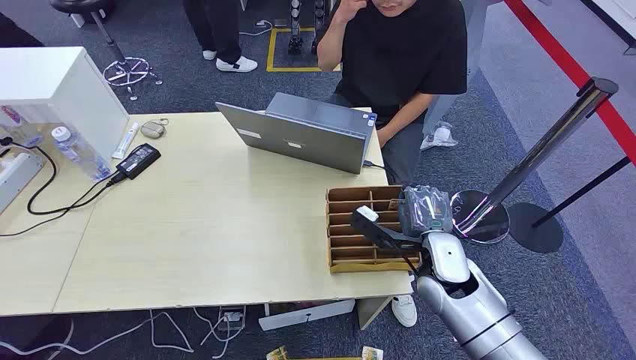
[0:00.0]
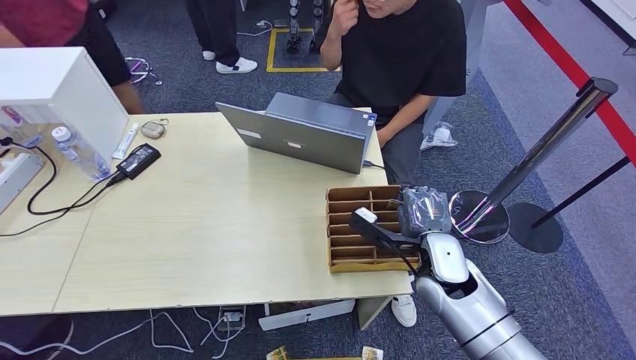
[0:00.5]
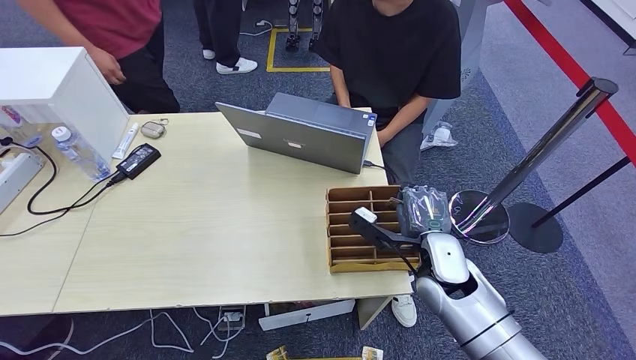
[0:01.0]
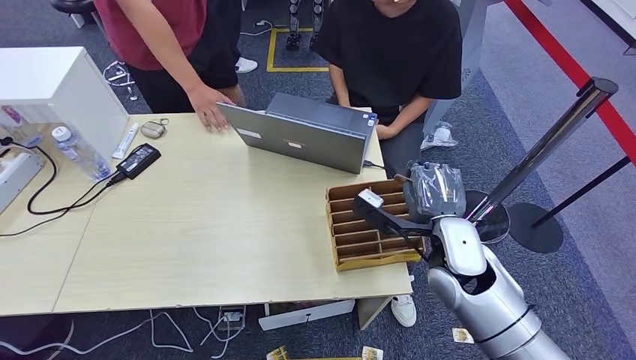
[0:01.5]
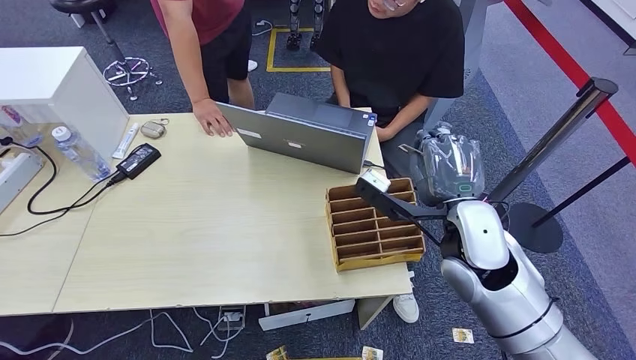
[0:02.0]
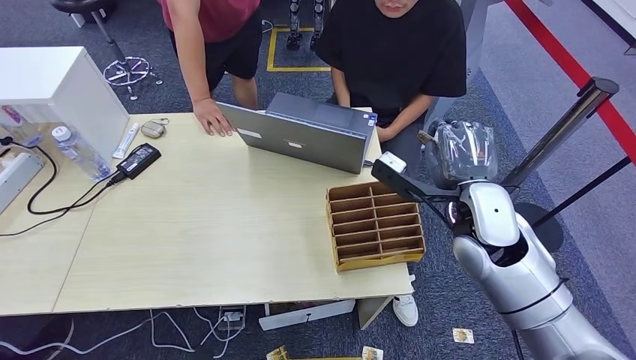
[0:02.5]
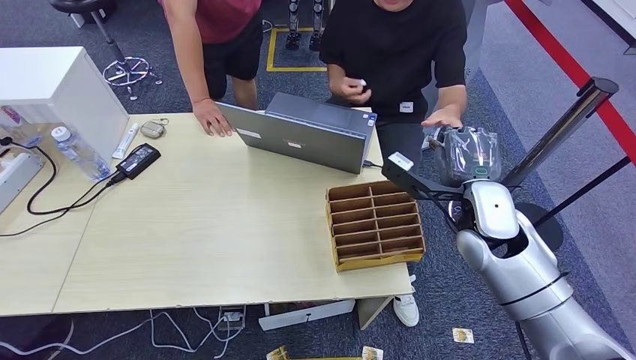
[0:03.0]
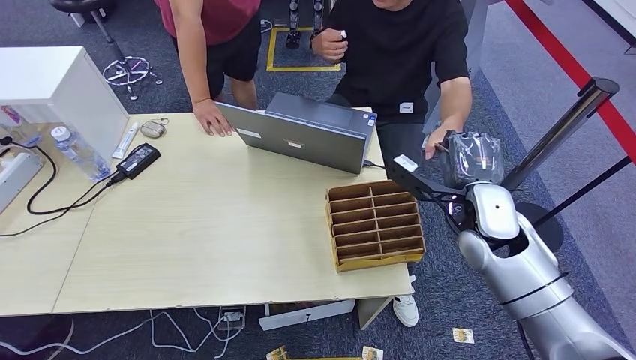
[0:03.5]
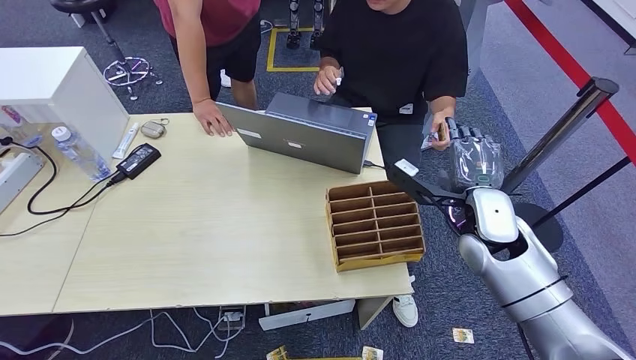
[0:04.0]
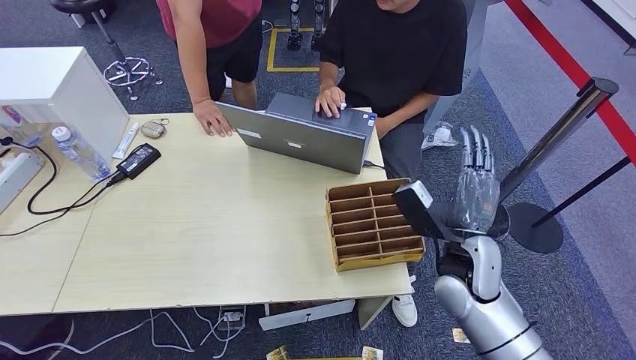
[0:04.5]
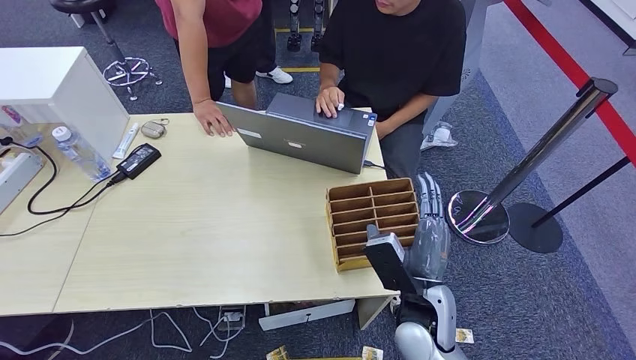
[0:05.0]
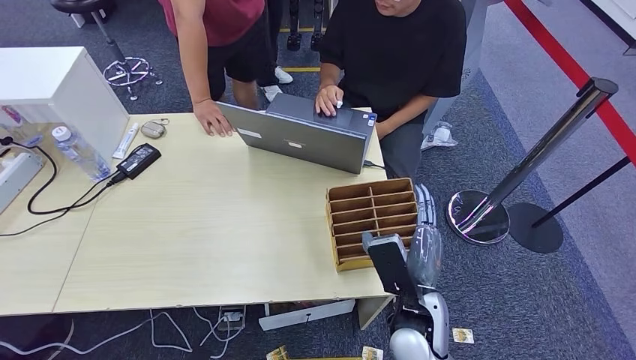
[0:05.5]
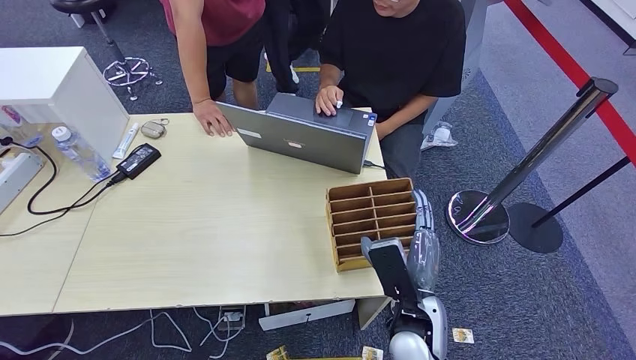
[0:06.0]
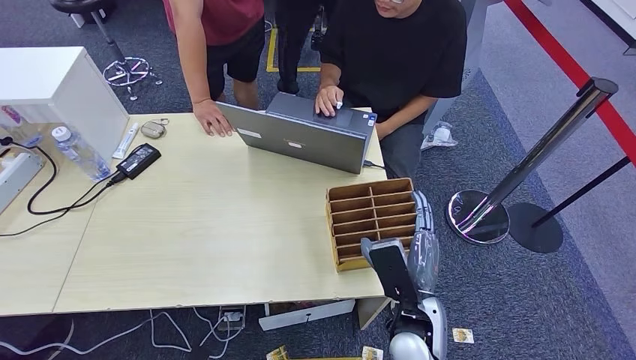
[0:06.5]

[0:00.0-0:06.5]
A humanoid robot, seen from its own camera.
Step, 0:00.0 to 0:01.5: Pick up the room card from the card holder.
Step, 0:02.0 to 0:06.5: Hand the room card to the target.
0:02.0 to 0:04.5: The right hand goes about 10 cm downward.
0:04.5 to 0:06.5: The right hand heads to the left, backward and downward, covering approximately 15 cm.
